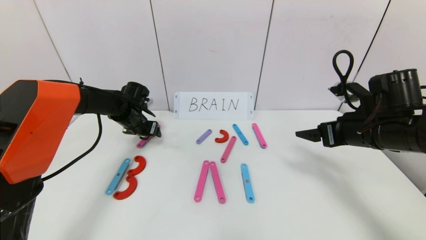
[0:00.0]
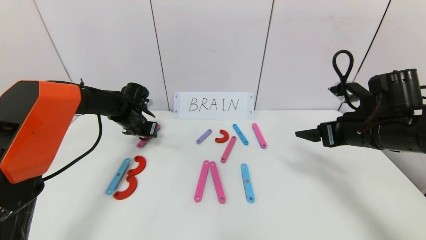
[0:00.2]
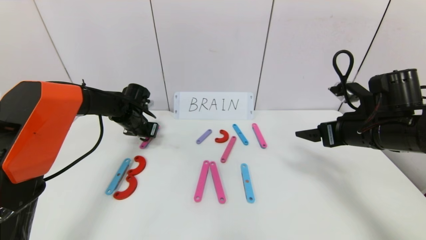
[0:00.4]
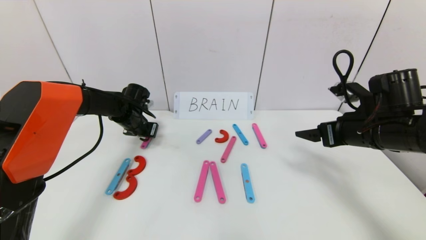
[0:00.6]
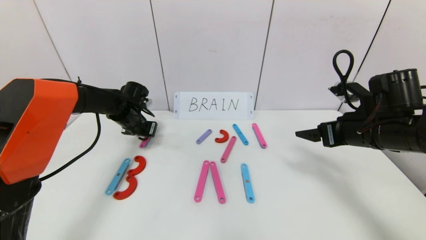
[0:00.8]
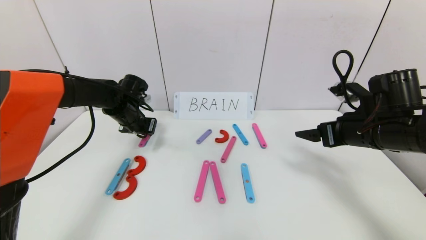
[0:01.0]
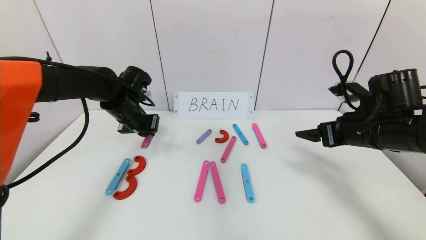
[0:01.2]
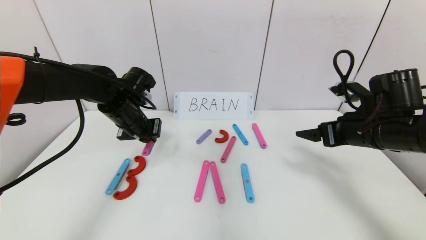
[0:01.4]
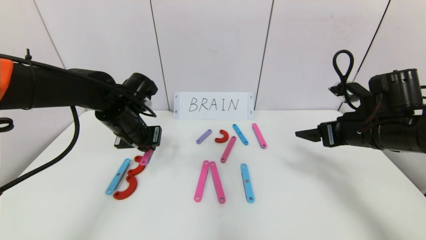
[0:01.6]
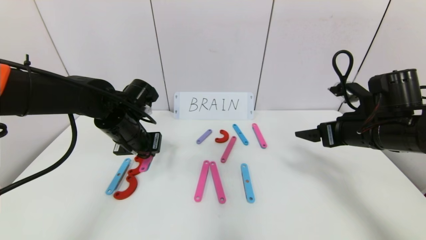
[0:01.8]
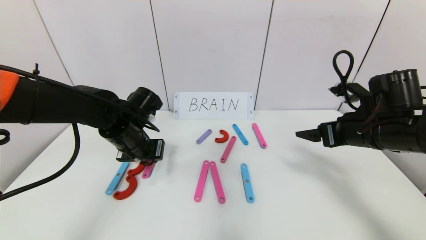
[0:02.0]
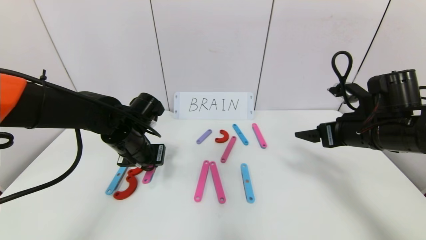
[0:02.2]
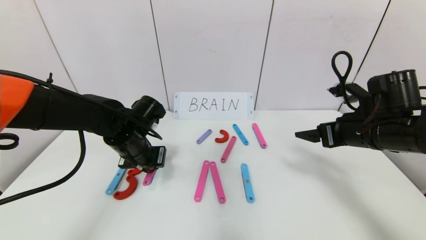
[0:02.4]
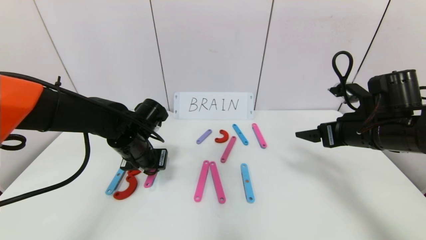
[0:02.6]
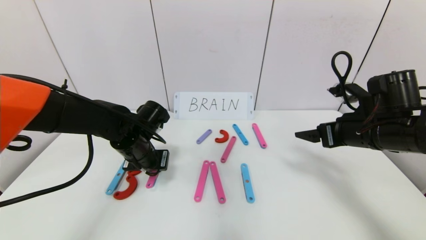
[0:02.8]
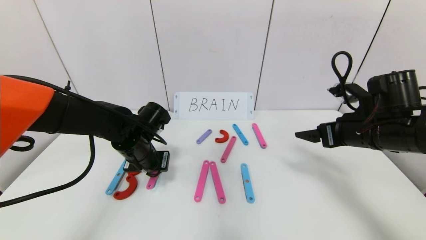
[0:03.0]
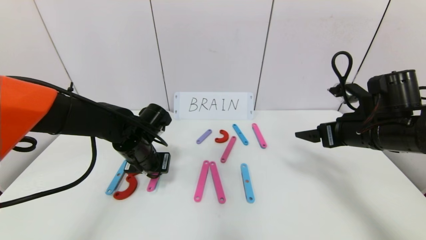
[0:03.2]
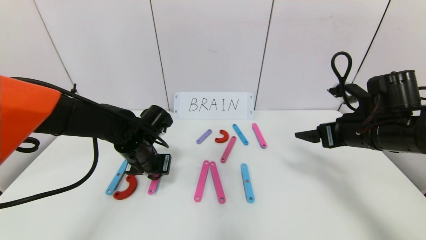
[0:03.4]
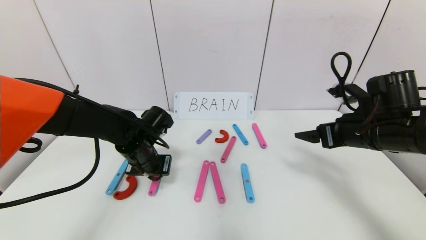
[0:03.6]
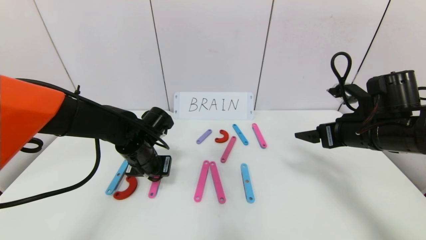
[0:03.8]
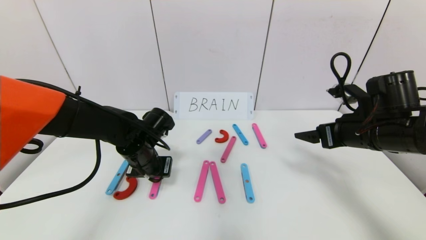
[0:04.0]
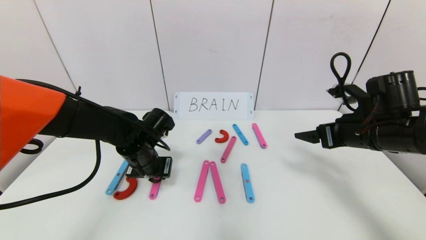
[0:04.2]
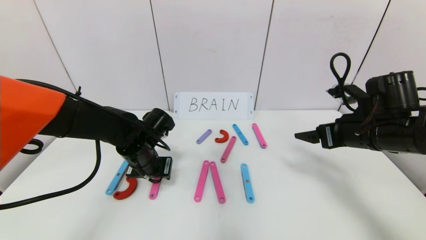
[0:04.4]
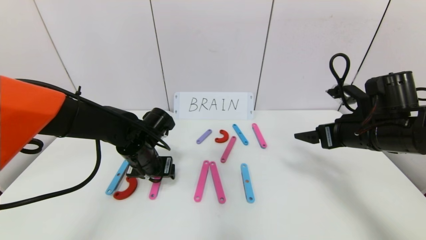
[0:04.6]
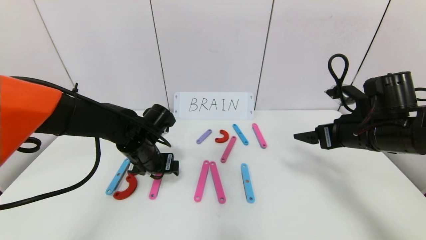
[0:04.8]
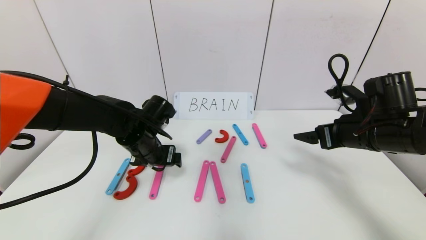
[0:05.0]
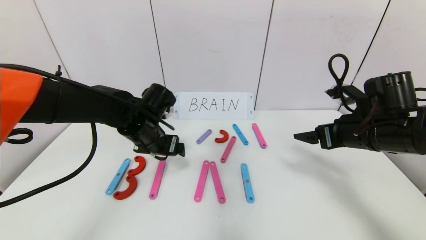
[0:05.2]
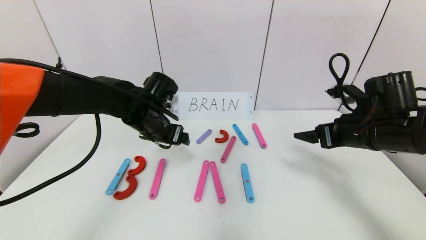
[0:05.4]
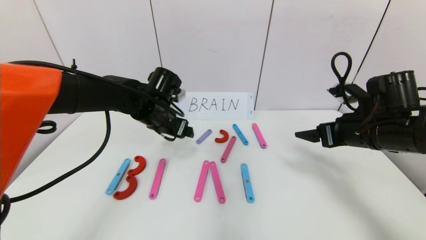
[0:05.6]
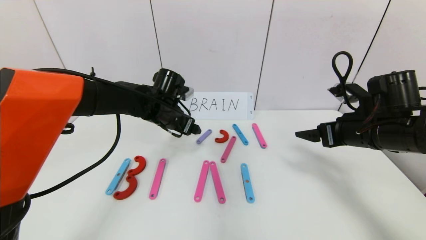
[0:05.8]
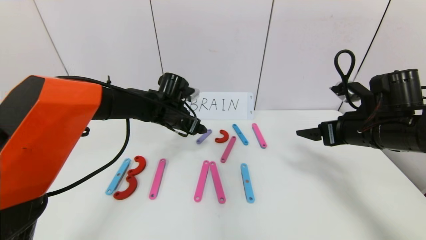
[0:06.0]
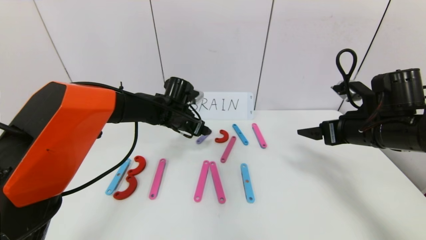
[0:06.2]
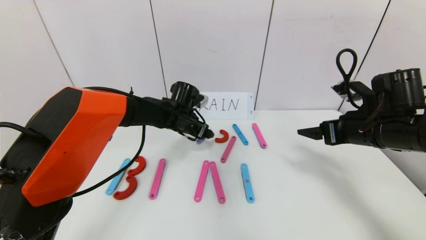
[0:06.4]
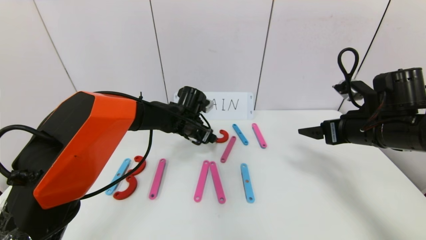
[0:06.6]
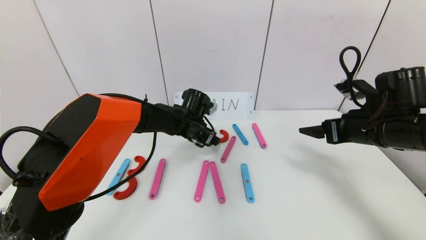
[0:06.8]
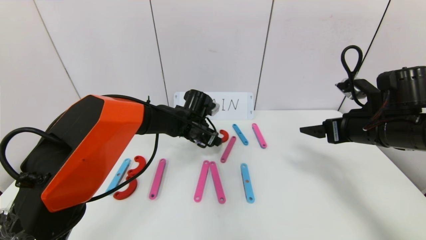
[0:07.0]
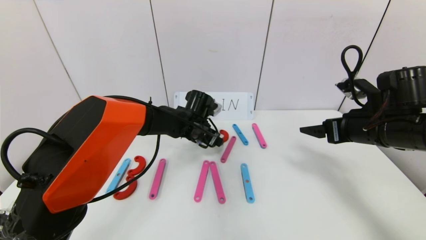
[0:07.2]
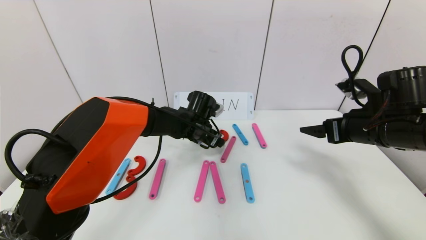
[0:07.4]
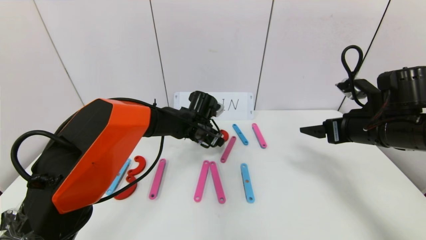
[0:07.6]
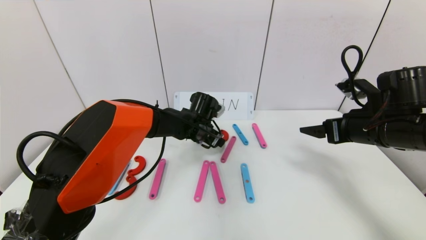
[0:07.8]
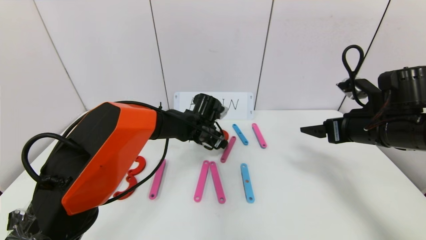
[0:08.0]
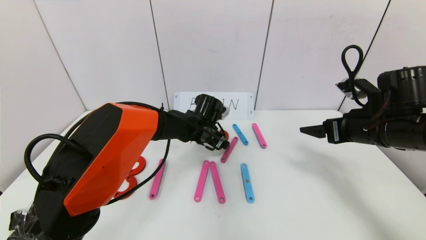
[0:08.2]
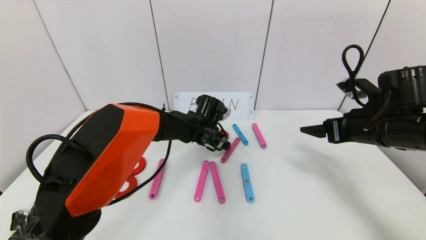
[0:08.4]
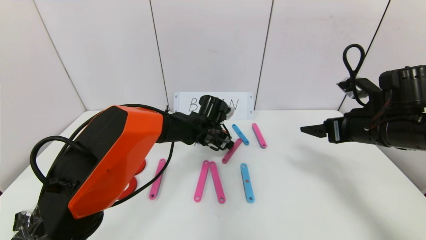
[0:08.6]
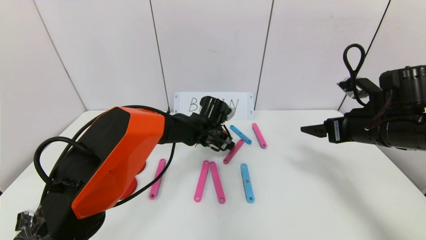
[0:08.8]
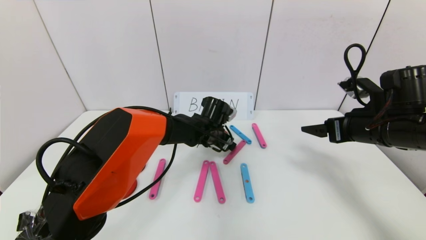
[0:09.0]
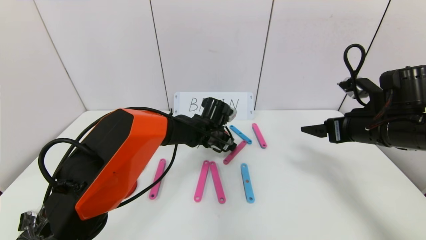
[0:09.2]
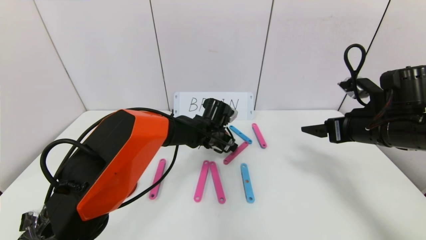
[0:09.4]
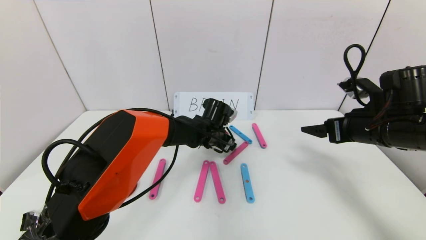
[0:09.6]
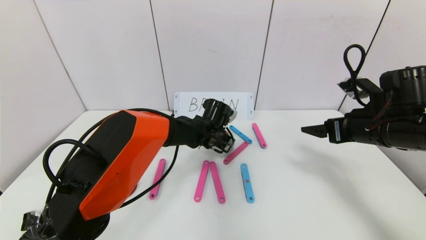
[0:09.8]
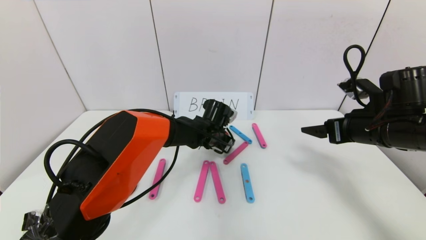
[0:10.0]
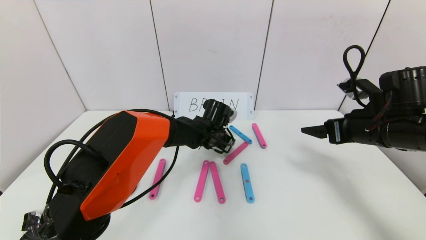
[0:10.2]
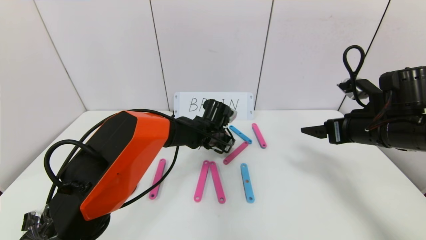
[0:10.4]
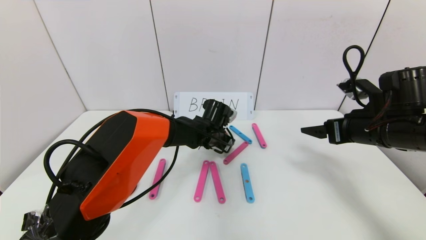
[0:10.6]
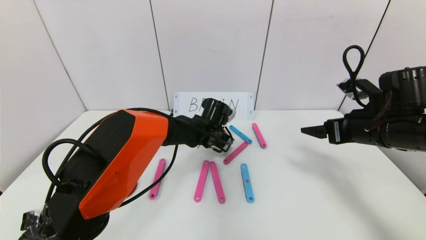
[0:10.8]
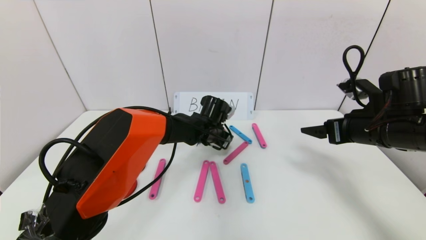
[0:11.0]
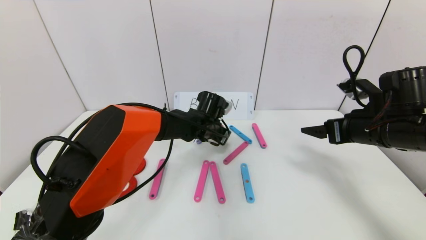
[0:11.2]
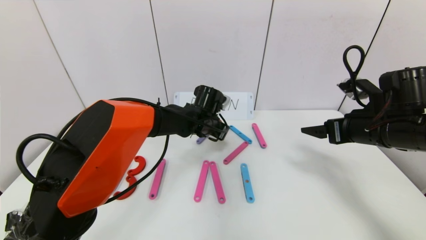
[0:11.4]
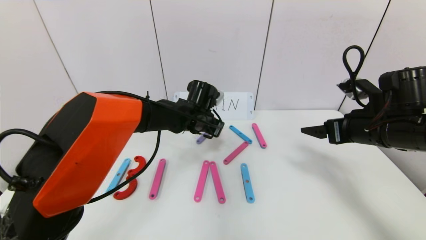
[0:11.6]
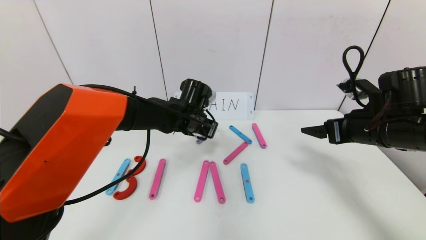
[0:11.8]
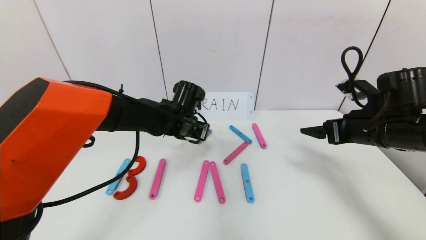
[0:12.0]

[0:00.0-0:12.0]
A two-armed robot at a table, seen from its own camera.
Task of the whole recording: rearrange the word baai as brain.
0:00.0 to 0:01.6: The left gripper shifts roughly 15 cm backward, upward and to the right, and closes up.
0:01.6 to 0:03.0: The left gripper shifts about 5 cm downward.
0:03.0 to 0:04.4: The left gripper opens its fingers.
0:04.4 to 0:06.0: The left gripper shifts about 10 cm forward, and opens up.
0:06.0 to 0:07.6: The left gripper travels to the right by about 5 cm.
0:07.6 to 0:09.0: The grippers stay close to where they were, moving slightly.
0:09.0 to 0:10.4: The left gripper closes up.
0:10.4 to 0:12.0: The left gripper goes some 10 cm to the left and upward.

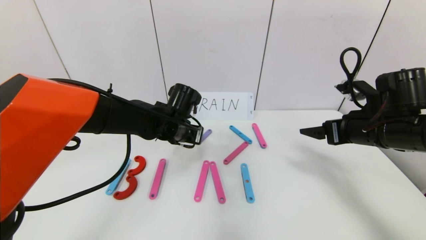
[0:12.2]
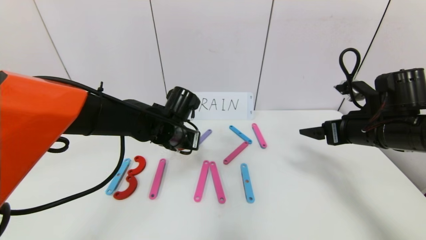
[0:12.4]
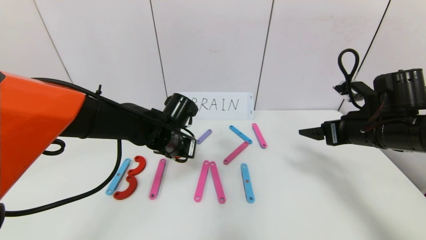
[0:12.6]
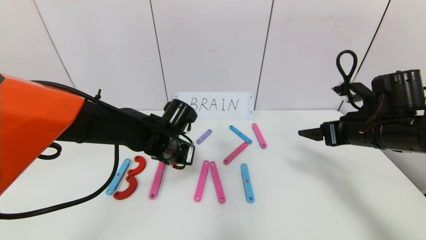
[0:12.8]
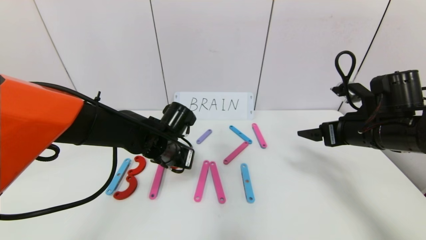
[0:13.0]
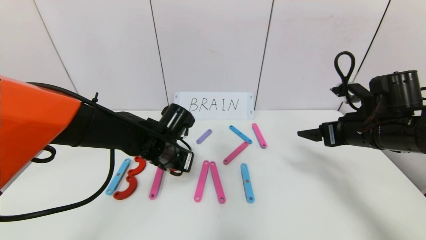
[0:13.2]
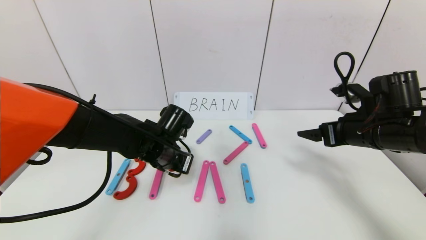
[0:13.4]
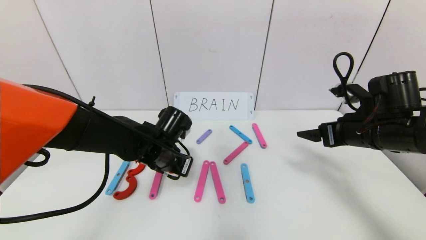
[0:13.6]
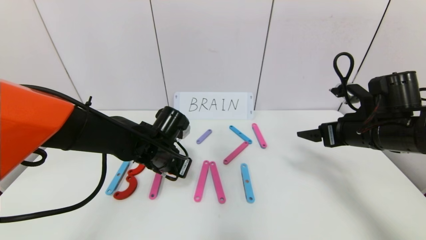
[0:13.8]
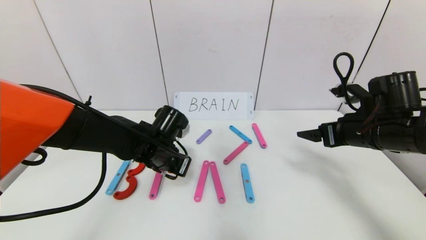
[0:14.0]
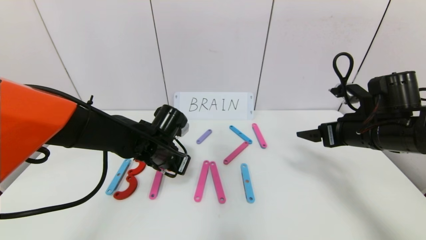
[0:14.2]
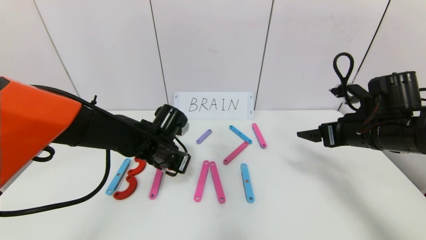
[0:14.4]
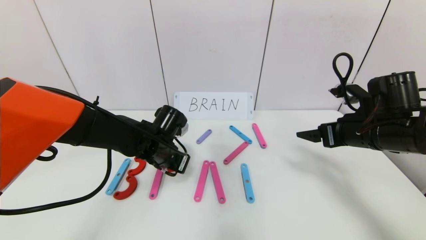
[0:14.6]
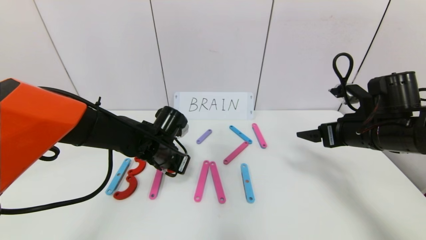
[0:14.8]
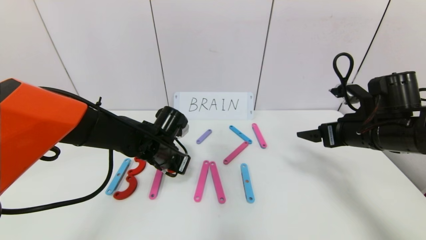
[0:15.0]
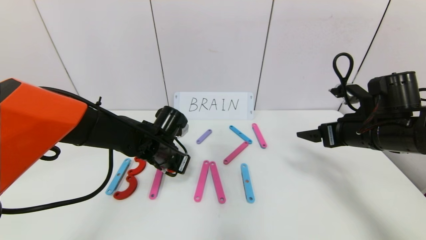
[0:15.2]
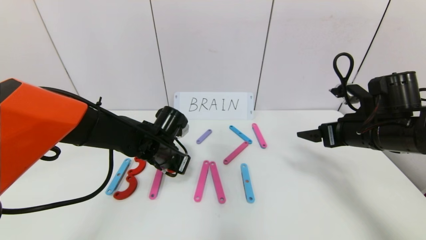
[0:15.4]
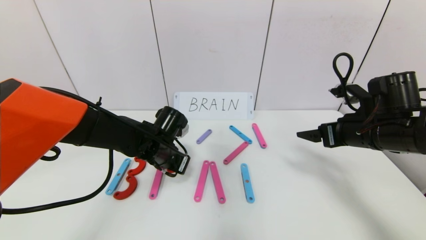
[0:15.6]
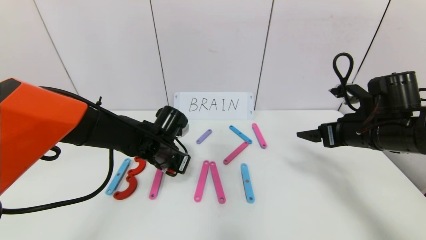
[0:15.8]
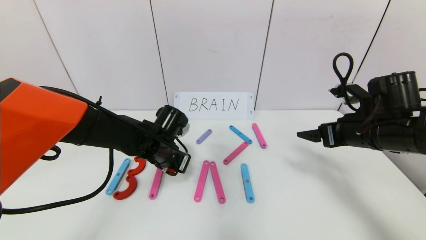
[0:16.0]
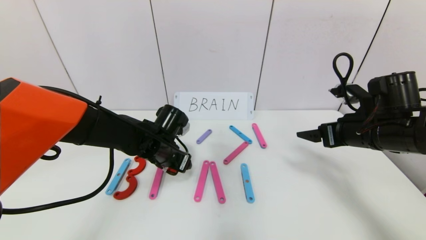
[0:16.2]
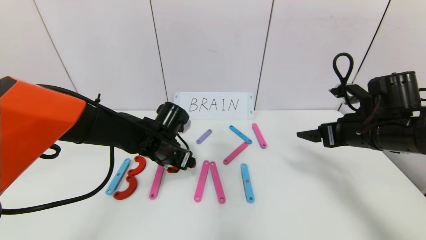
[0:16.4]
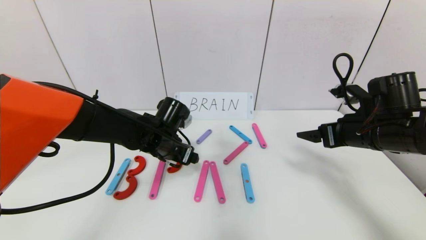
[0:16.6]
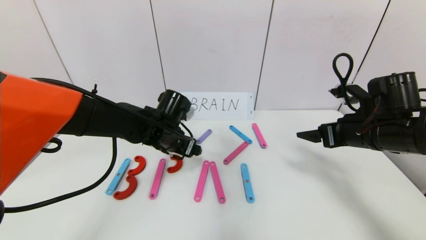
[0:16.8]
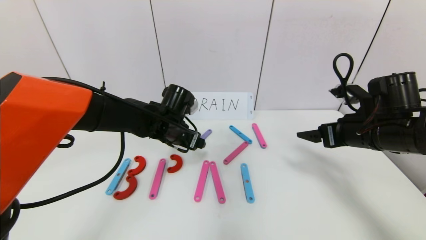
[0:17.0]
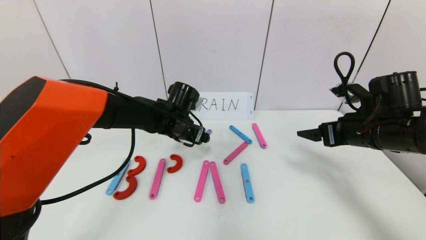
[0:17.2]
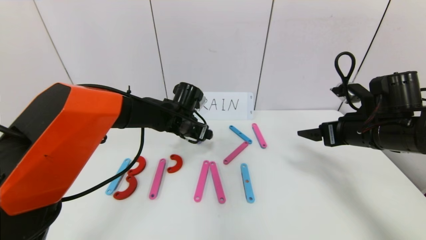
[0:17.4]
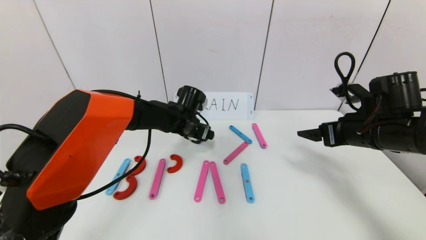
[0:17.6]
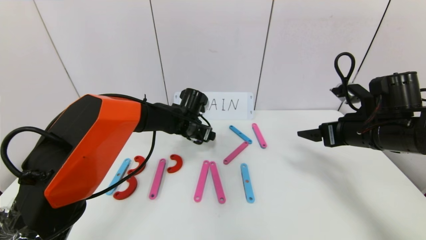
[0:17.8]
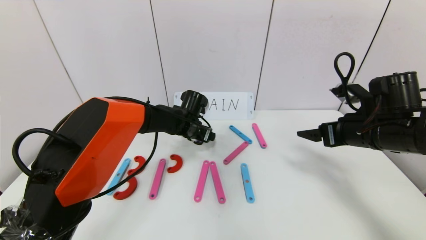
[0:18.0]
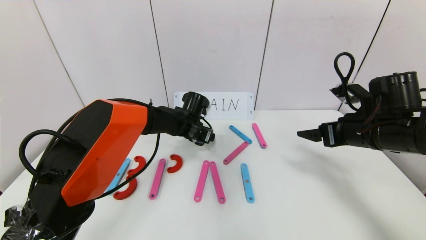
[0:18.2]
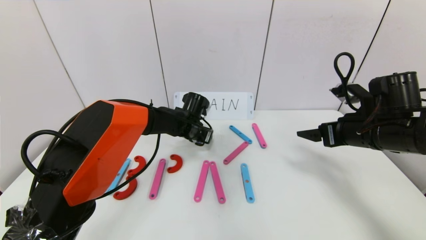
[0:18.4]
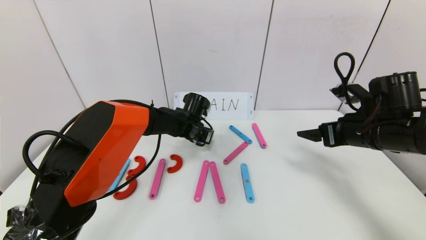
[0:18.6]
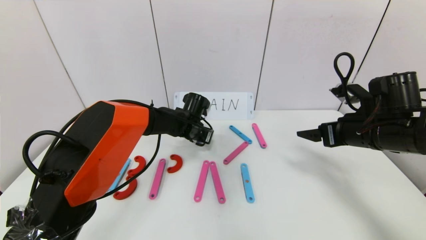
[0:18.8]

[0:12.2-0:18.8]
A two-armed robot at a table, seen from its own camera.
Task of the whole recording: rearrange the word baai as brain.
0:12.2 to 0:13.8: The left gripper ends up approximately 5 cm from where it was.
0:13.8 to 0:15.4: There are only small adjustments of the grippers.
0:15.4 to 0:17.2: The left gripper shifts about 5 cm forward, and opens.
0:17.2 to 0:18.8: The left gripper is displaced forward and downward by about 10 cm, and closes.
